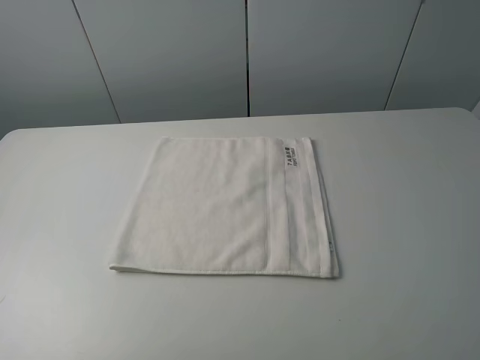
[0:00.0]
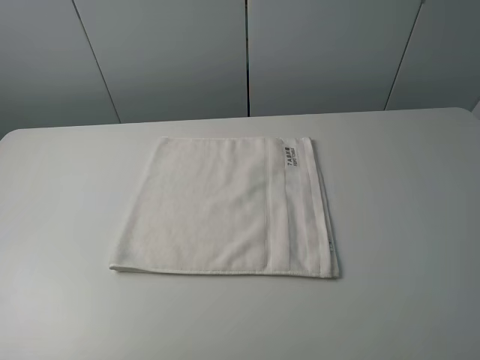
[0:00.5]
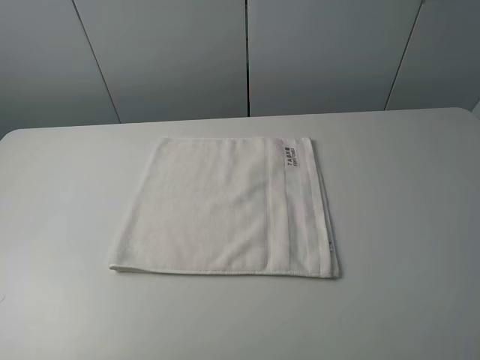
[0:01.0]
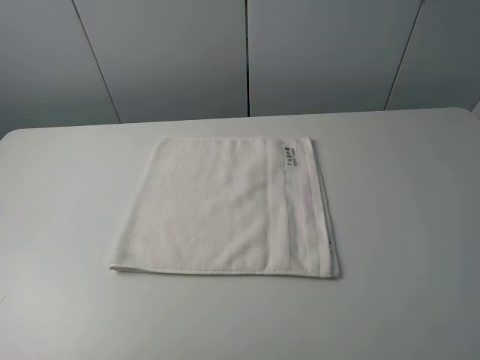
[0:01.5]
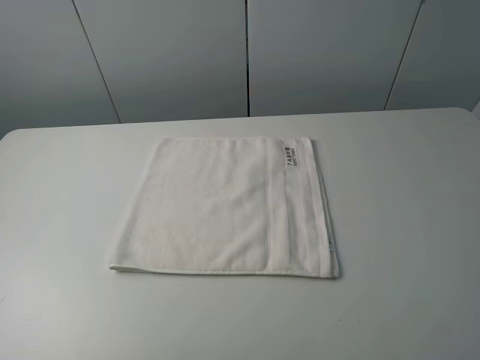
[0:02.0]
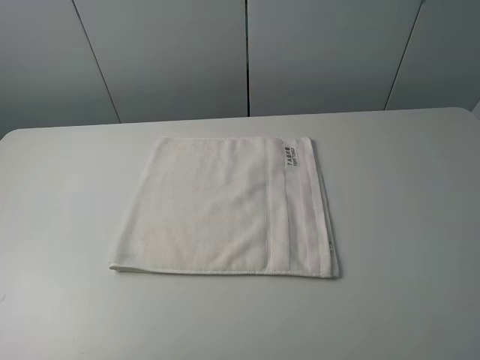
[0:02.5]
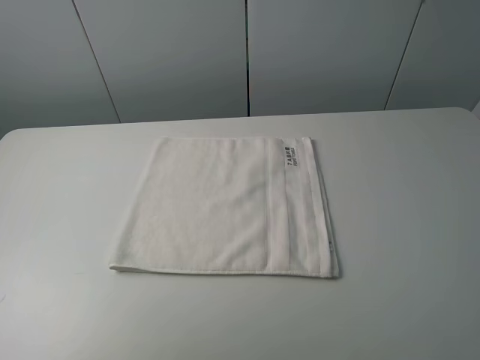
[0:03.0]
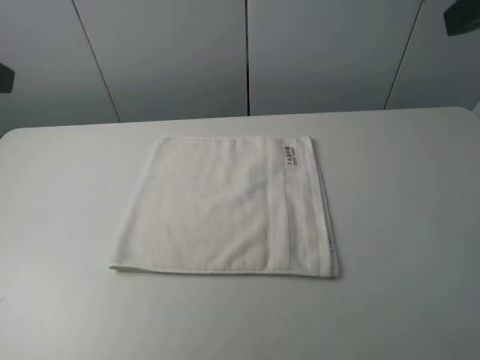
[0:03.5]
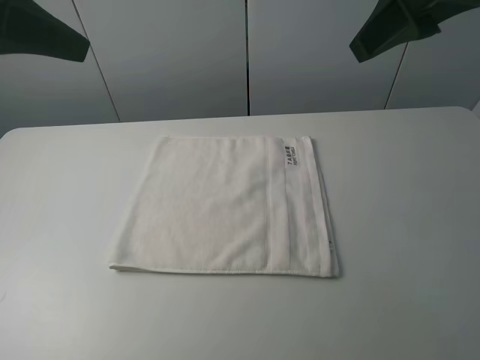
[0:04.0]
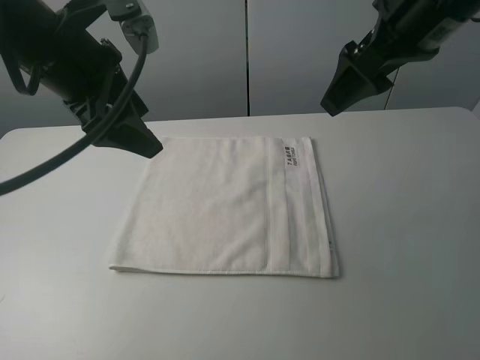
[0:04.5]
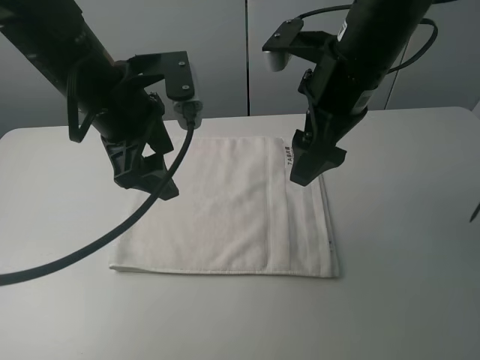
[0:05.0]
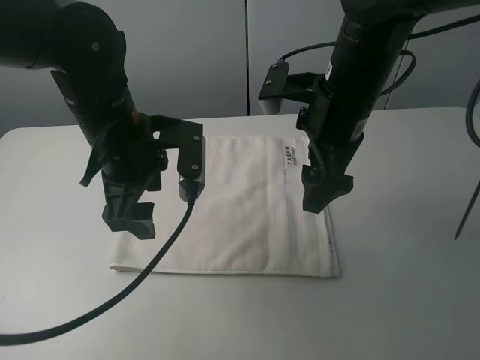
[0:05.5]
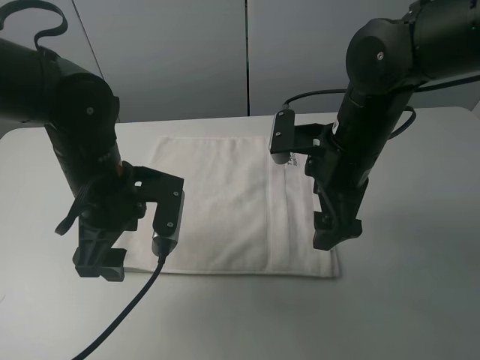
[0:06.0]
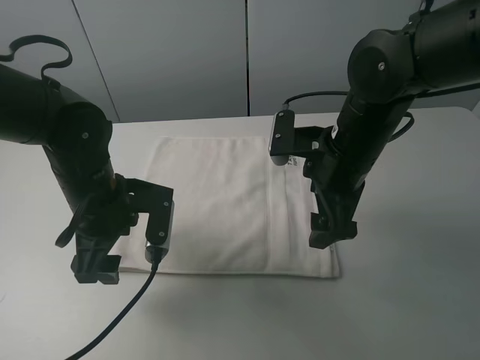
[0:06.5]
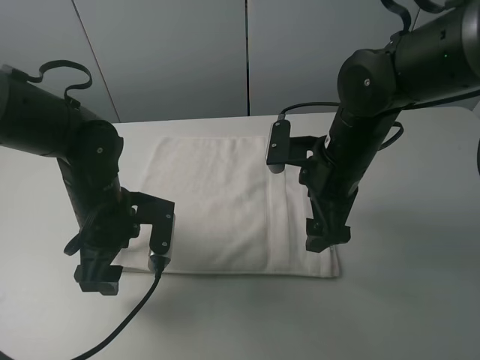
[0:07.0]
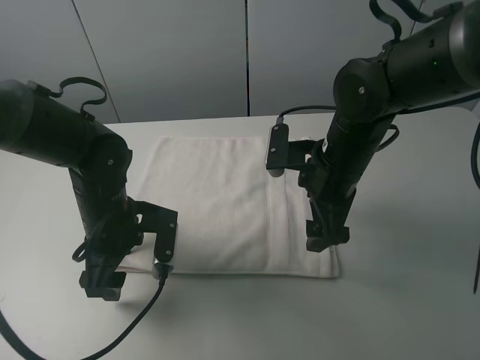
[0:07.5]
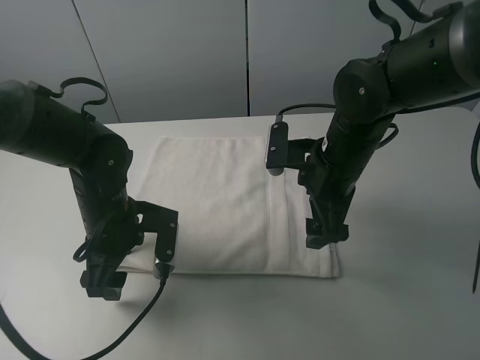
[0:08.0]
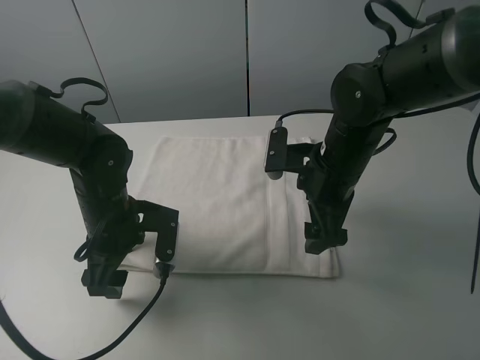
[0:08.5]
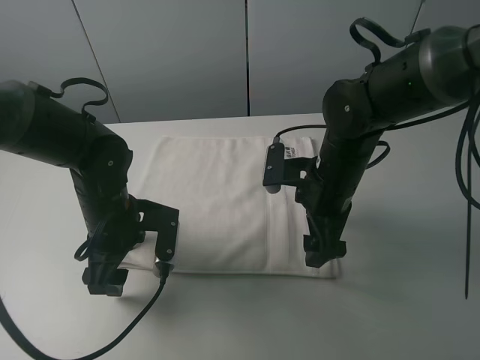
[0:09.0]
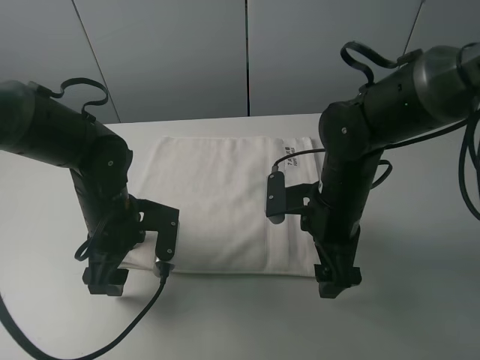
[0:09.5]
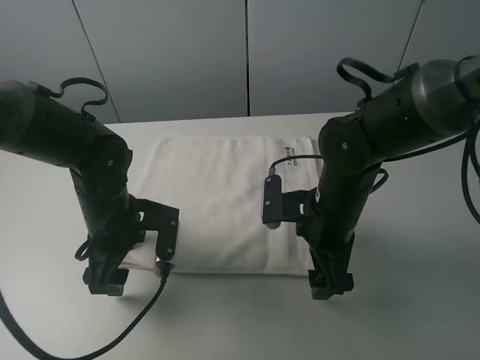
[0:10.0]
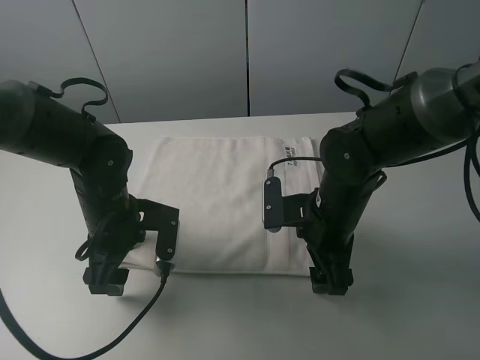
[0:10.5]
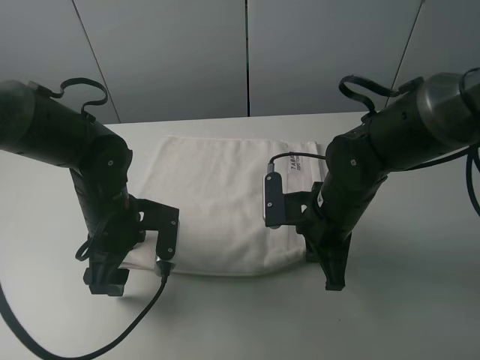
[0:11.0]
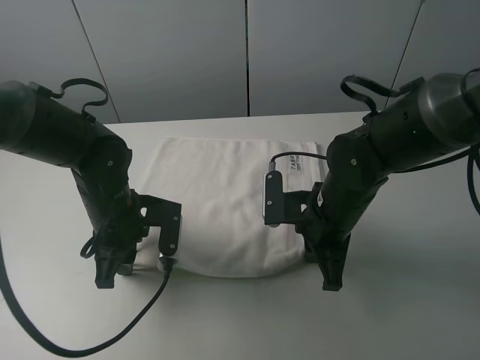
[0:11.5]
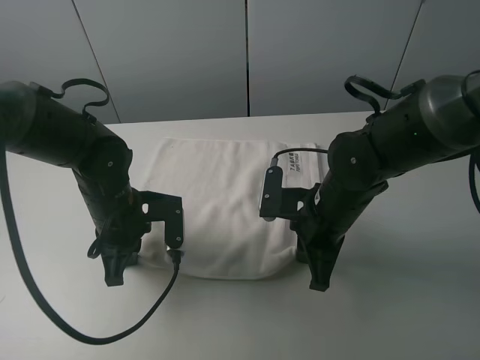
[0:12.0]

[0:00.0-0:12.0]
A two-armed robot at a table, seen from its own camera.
Task of the whole recording: fold the towels on the table.
Step, 0:00.0 to 0:11.0: Grasp the white towel with the right gripper.
0:00.0 to 0:02.0: Neither gripper changes place.
0:02.0 to 0:04.0: The grippers both shift forward by roughly 25 cm.
0:04.0 to 0:06.0: The right gripper moves downward, about 20 cm; the left gripper shifts roughly 20 cm downward and to the right.
0:06.0 to 0:08.0: The left gripper moves downward, about 5 cm.
0:08.0 to 0:10.0: The right gripper shifts by roughly 5 cm.
0:10.0 to 0:12.0: The left gripper closes; the right gripper closes up.

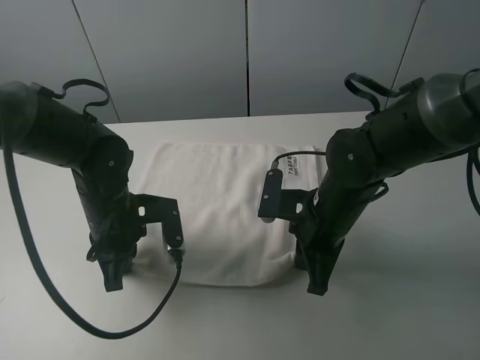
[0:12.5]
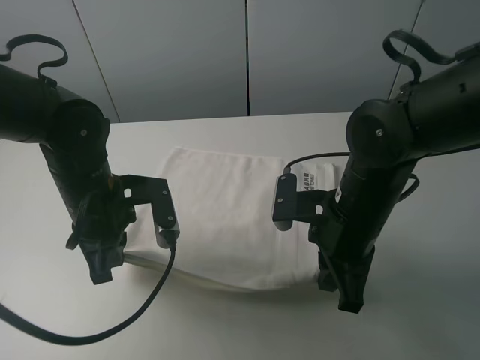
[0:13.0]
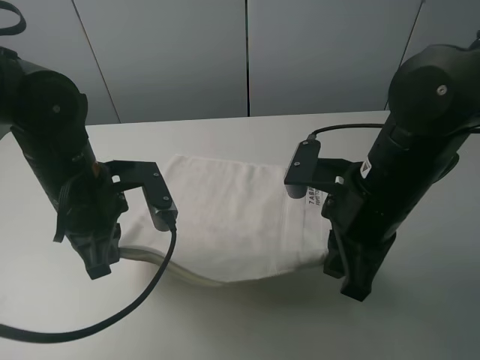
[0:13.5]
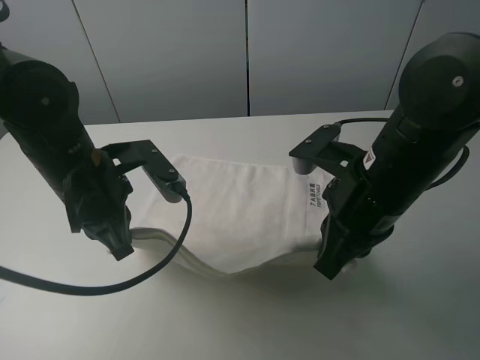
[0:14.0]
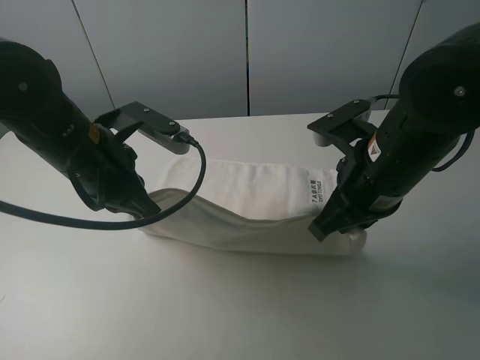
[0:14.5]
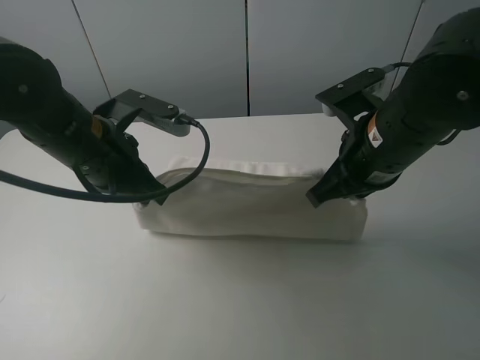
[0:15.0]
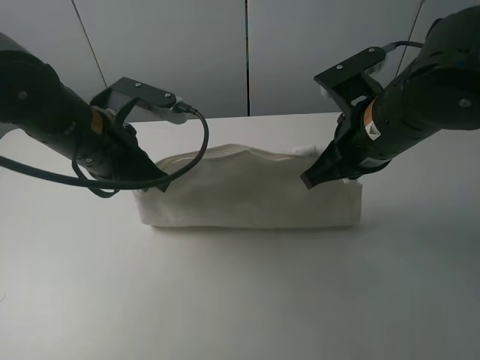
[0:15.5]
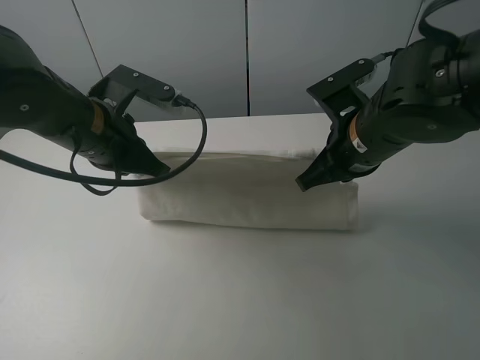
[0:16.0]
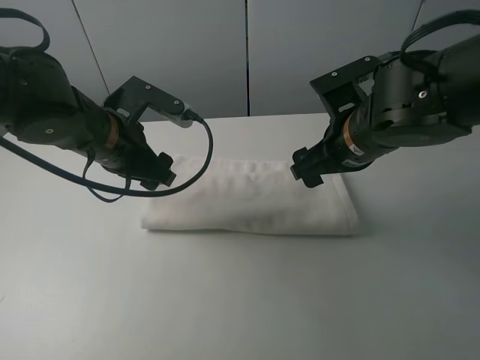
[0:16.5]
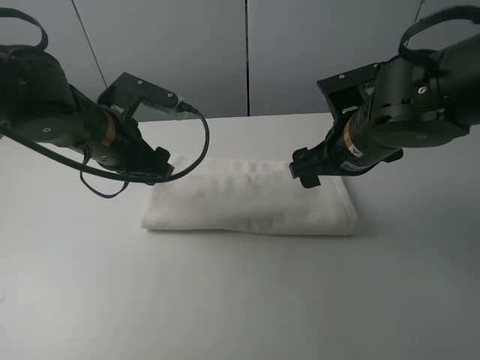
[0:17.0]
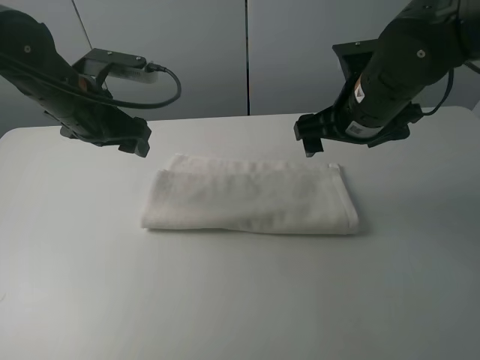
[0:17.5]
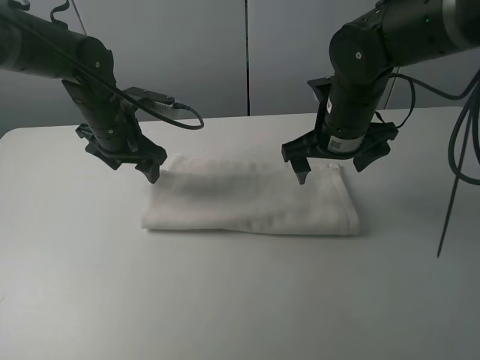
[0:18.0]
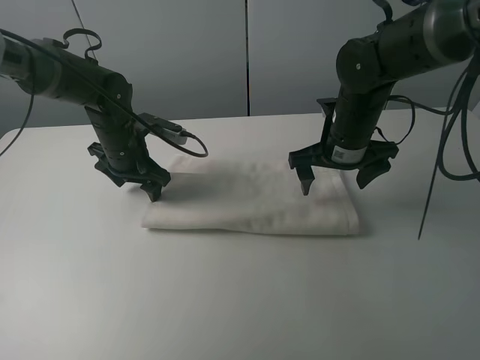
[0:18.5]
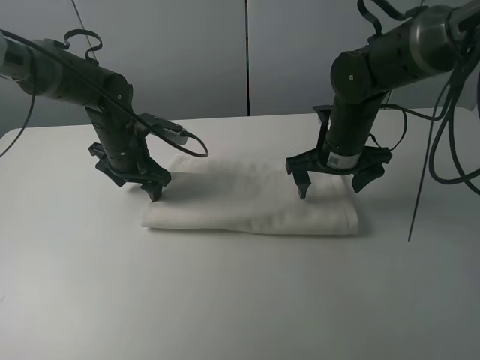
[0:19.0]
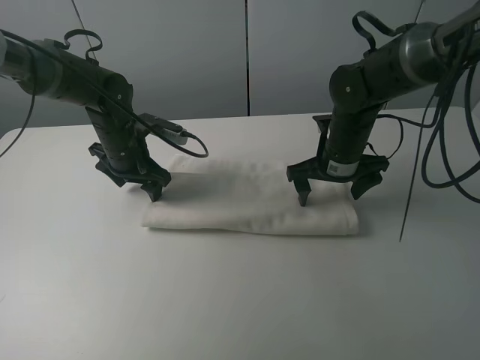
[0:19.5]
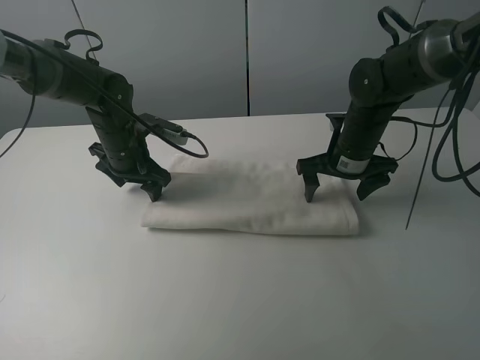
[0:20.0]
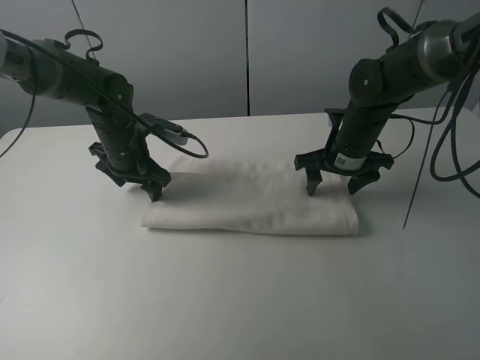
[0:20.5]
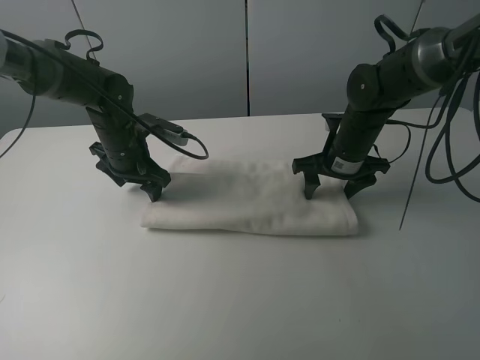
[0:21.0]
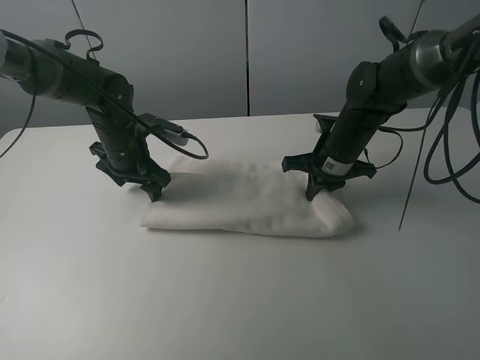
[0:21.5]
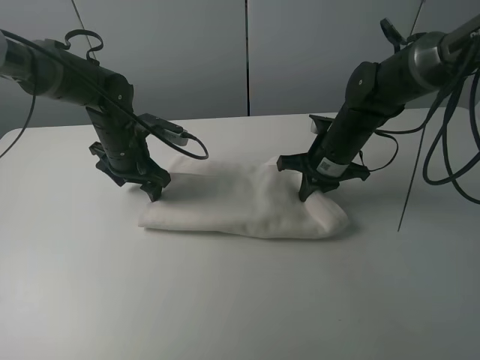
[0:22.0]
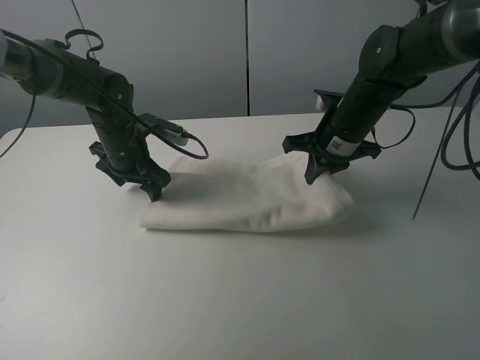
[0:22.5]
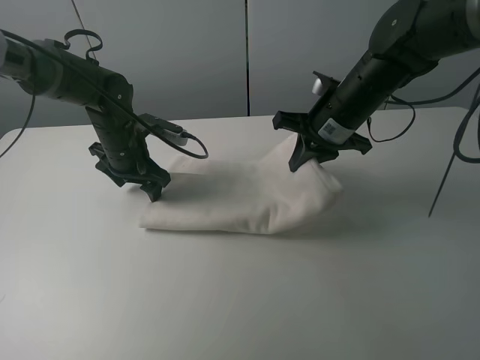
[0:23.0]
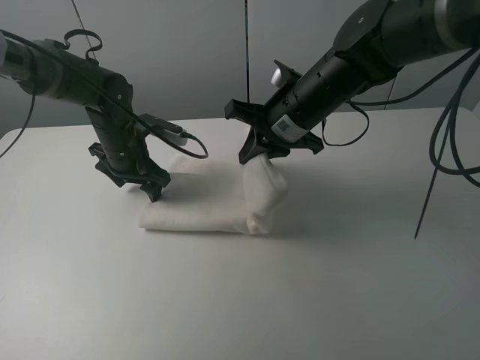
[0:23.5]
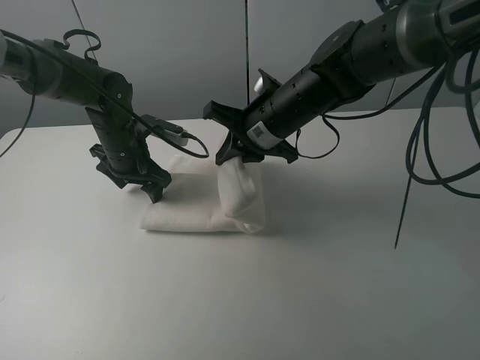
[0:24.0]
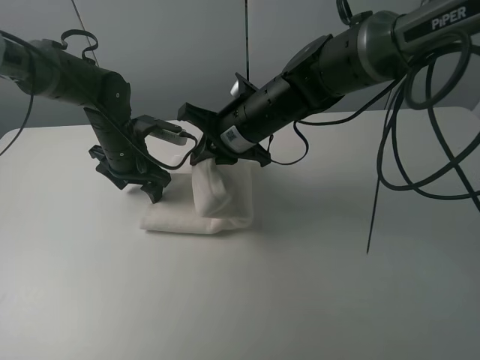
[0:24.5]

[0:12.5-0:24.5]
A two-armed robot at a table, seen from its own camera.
Task of the whole recording: fold the towels on the table.
Step, 0:12.5 to 0:16.5: Fold the white towel upwards with the right gripper.
Step, 0:17.0 to 0:18.5: Press on the white towel with the left gripper.
0:12.5 to 0:14.5: The grippers both shift upward by about 10 cm.
0:14.5 to 0:16.5: The right gripper is displaced forward by about 5 cm, and opens, while the left gripper opens its fingers.
0:16.5 to 0:18.5: The left gripper goes roughly 10 cm forward and downward, while the right gripper shifts approximately 5 cm forward.
0:18.5 to 0:20.5: The right gripper ends up approximately 5 cm from where it was.
0:20.5 to 0:22.5: The right gripper closes up.
0:22.5 to 0:24.5: The right gripper travels to the left by about 15 cm.

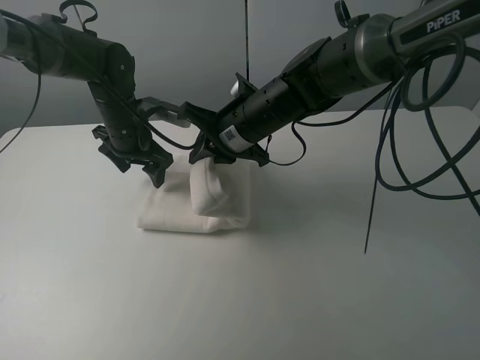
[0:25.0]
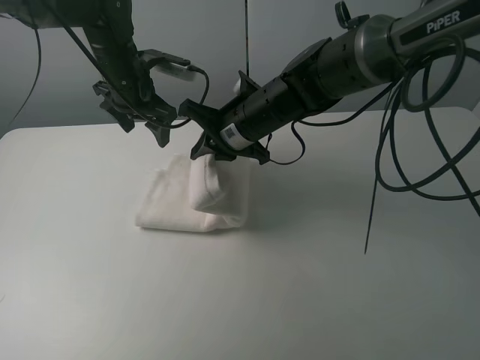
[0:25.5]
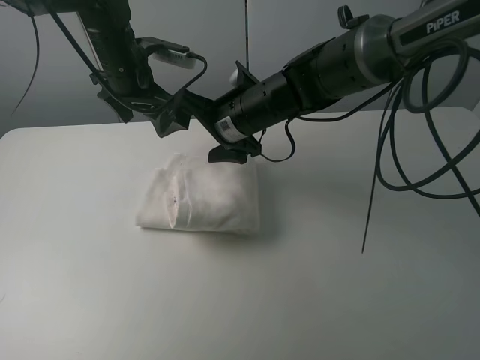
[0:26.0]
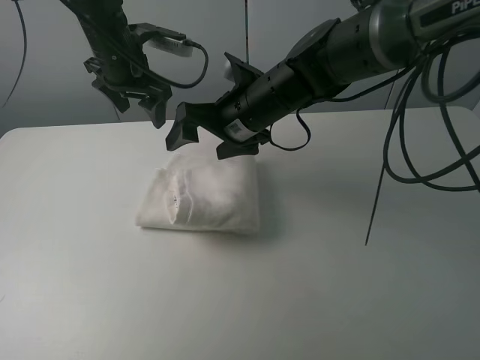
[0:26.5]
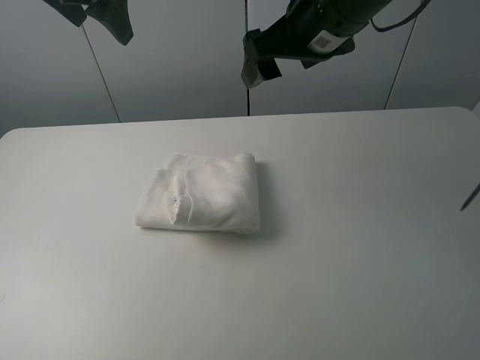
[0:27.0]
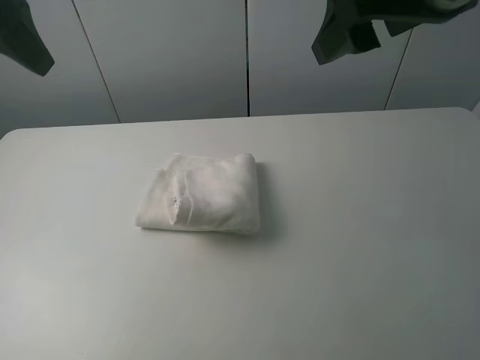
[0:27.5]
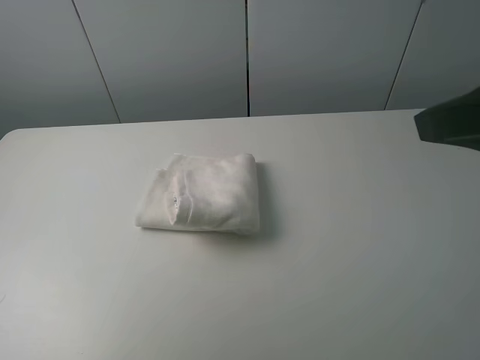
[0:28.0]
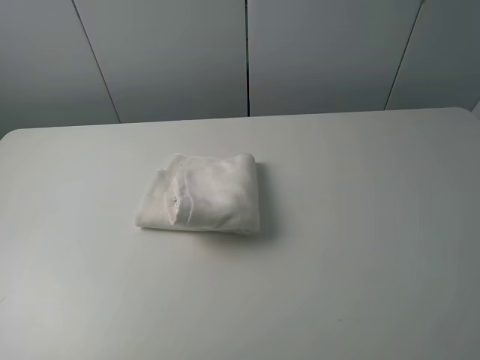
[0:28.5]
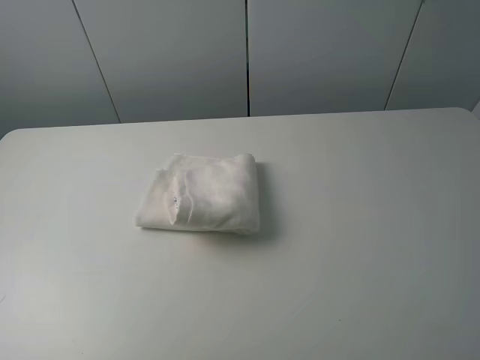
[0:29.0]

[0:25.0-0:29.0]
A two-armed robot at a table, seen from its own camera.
Task of the whole recording: fold the towels on the table.
0:25.0 to 0:27.0: The right gripper moves upward and to the right, approximately 20 cm, and opens. The left gripper heads upward, covering some 25 cm.
0:27.0 to 0:29.0: The right gripper shifts about 35 cm backward and to the right, while the left gripper shifts roughly 40 cm backward.
